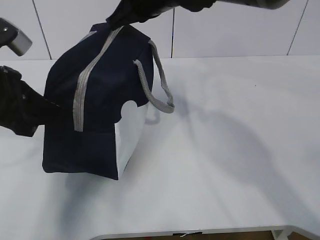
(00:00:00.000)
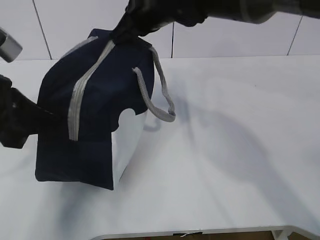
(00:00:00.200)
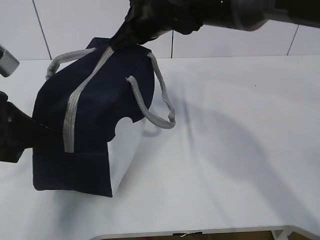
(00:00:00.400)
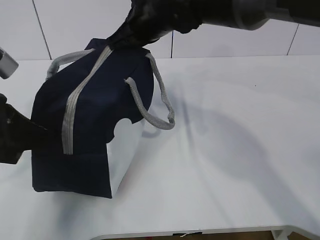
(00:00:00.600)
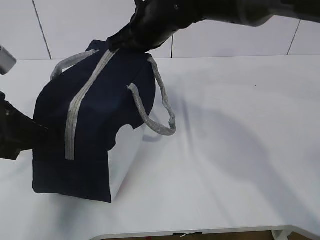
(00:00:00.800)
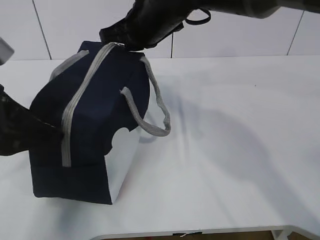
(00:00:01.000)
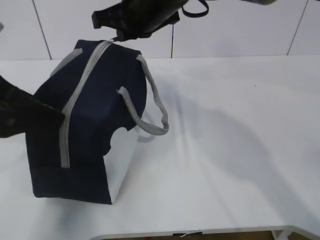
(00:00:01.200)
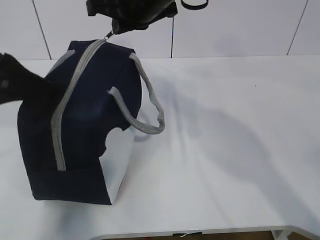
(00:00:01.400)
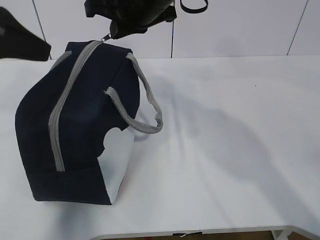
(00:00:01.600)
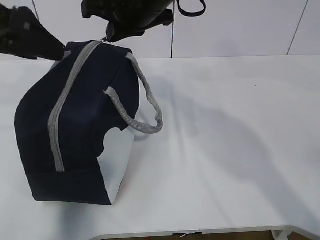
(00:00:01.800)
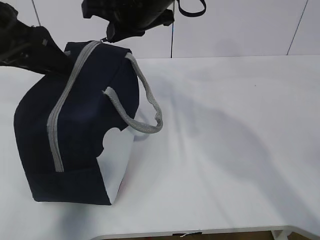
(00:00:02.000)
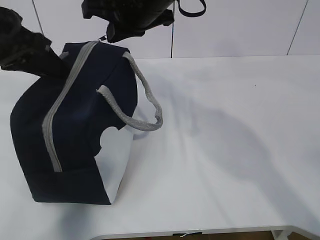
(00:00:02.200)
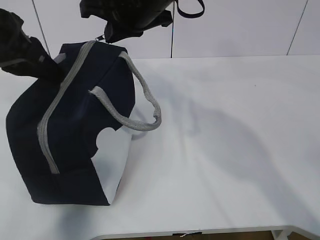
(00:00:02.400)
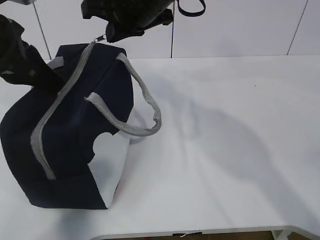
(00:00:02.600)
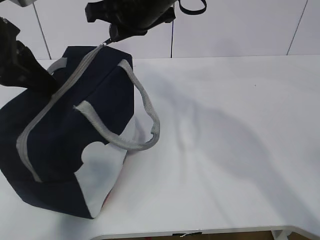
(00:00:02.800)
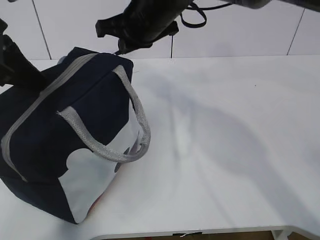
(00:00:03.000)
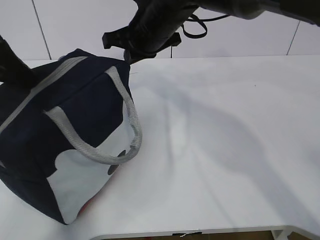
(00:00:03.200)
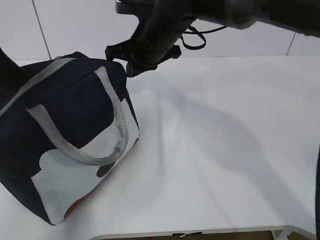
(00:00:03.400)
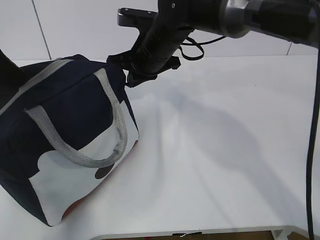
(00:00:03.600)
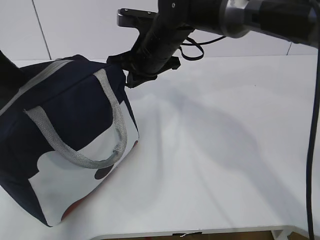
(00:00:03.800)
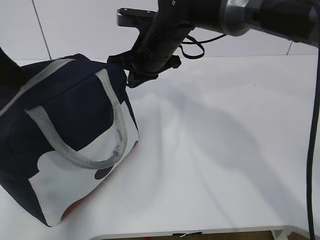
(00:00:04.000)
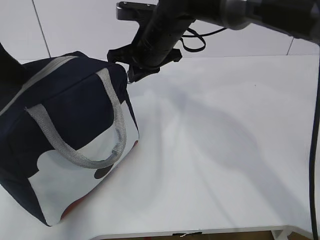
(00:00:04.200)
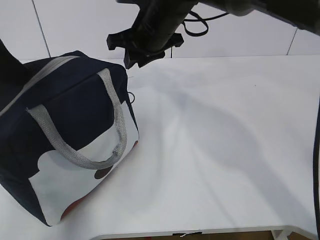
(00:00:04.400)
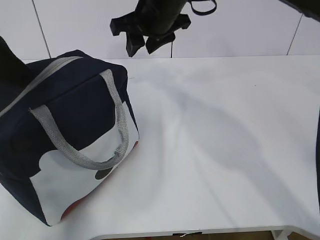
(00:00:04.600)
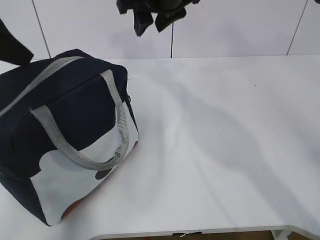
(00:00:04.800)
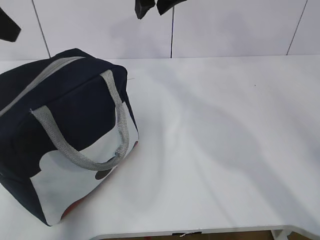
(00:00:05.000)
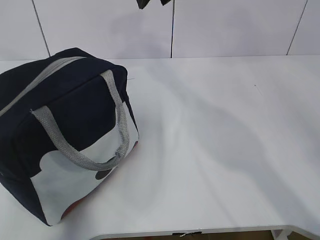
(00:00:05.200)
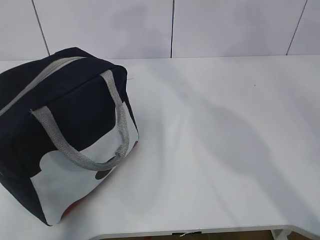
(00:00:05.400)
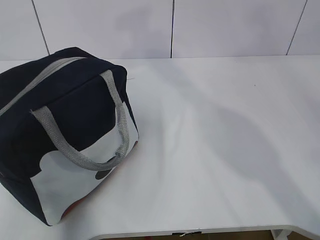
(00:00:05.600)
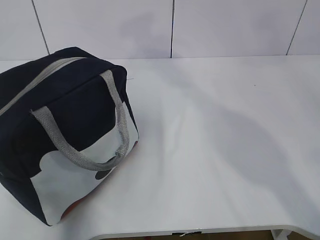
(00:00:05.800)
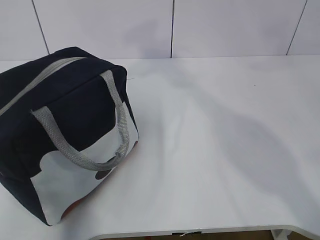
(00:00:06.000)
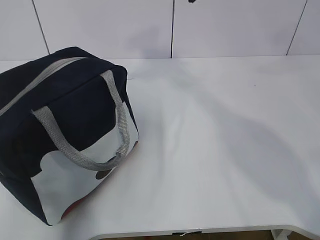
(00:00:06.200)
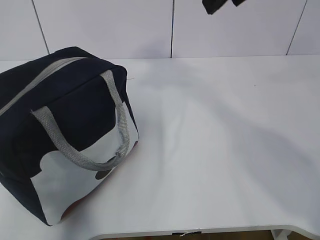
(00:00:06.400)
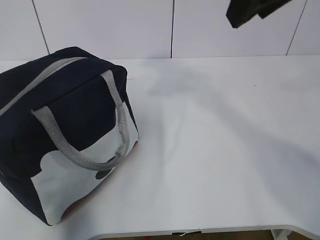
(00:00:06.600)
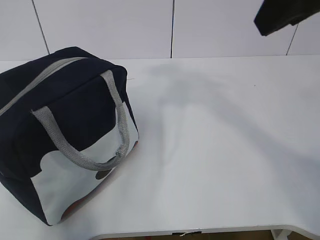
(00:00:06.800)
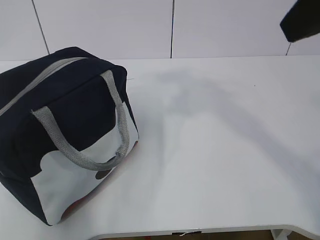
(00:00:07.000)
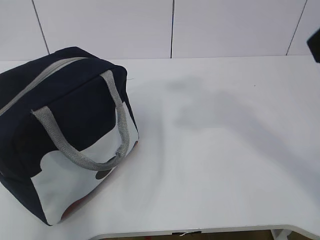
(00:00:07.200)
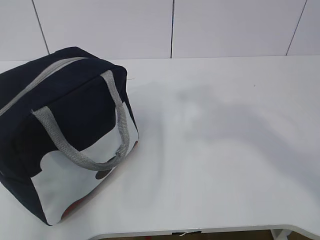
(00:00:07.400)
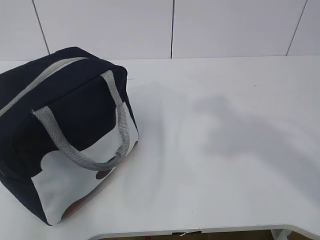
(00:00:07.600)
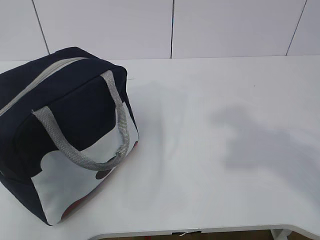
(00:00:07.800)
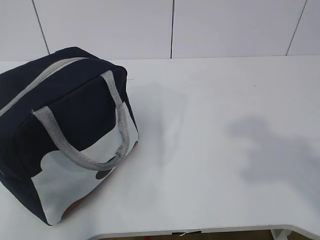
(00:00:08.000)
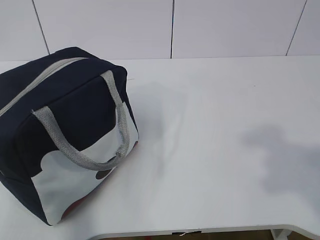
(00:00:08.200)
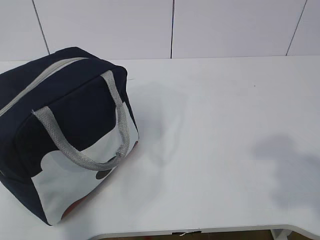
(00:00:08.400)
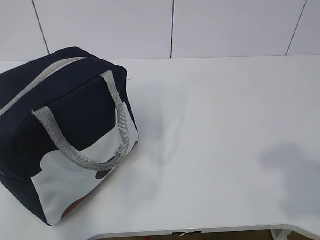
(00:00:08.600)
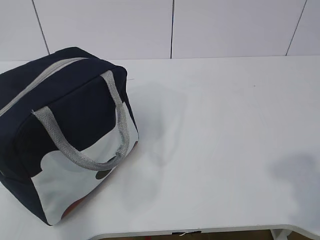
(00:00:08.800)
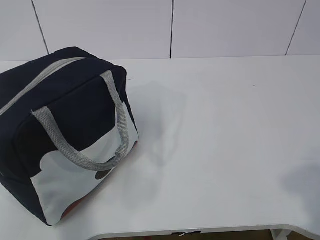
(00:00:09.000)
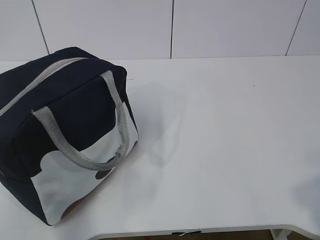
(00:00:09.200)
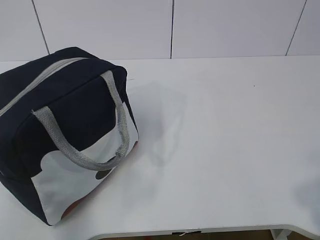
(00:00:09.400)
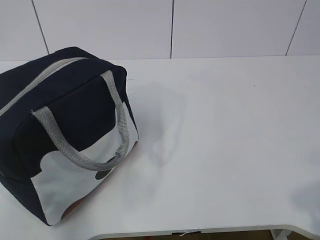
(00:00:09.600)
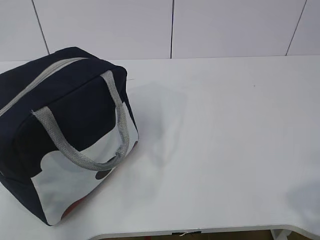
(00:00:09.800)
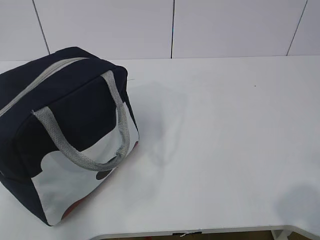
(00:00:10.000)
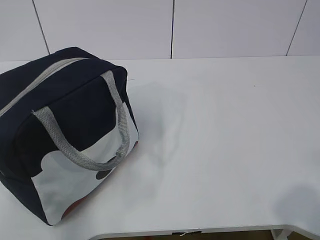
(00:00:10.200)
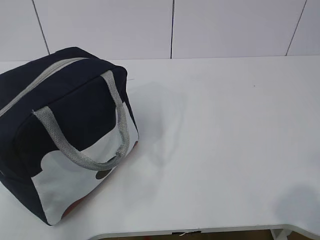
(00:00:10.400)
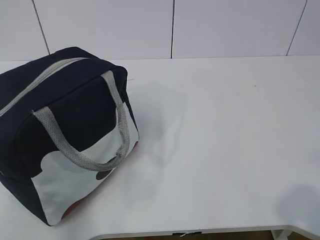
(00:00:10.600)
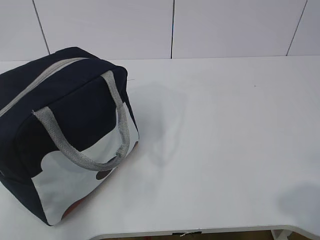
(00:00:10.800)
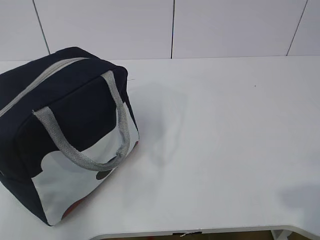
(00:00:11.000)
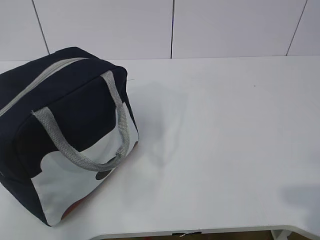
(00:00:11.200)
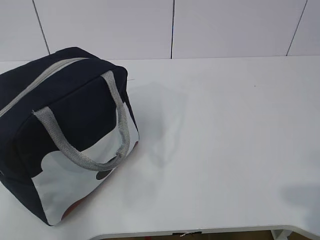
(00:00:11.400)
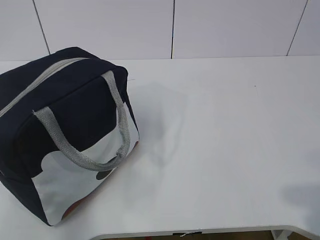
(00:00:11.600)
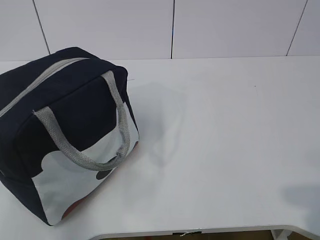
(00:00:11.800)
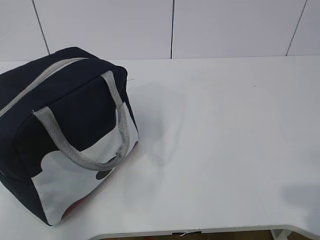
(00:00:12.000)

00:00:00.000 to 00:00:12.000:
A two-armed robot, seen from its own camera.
00:00:00.000 to 00:00:01.600: The left gripper shifts approximately 10 cm upward, and opens its fingers.
00:00:01.600 to 00:00:03.000: The left gripper closes.
00:00:03.000 to 00:00:04.400: The right gripper opens its fingers.
00:00:04.400 to 00:00:06.000: The left gripper moves upward, about 10 cm, and opens up. Meanwhile the right gripper goes roughly 20 cm upward, backward and to the right.
00:00:06.000 to 00:00:07.600: The left gripper shifts about 20 cm backward. The right gripper is displaced backward and to the right by approximately 25 cm.
00:00:07.600 to 00:00:09.000: The left gripper moves downward, approximately 15 cm; the right gripper travels backward, downward and to the right by roughly 15 cm.
00:00:09.000 to 00:00:10.400: The right gripper travels downward by some 5 cm.

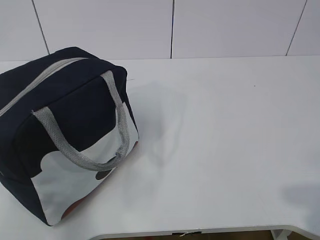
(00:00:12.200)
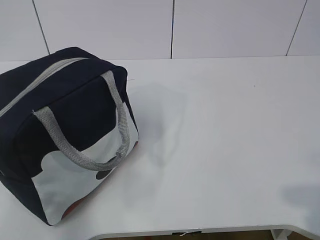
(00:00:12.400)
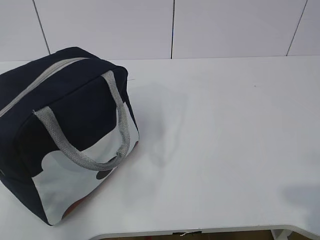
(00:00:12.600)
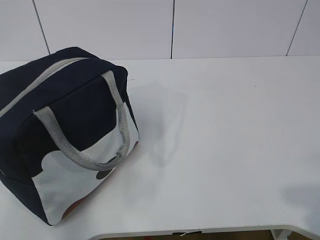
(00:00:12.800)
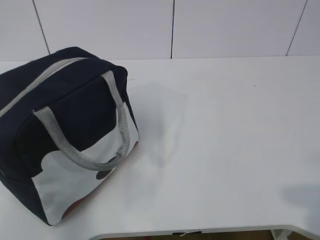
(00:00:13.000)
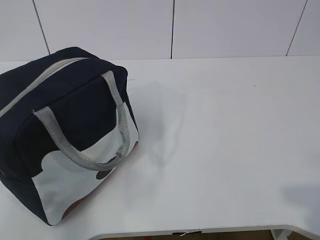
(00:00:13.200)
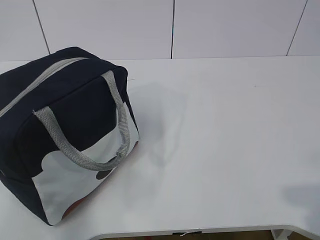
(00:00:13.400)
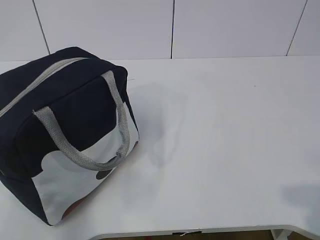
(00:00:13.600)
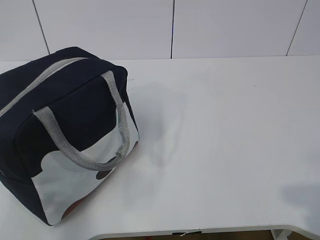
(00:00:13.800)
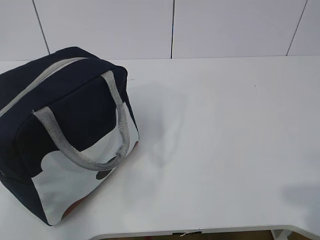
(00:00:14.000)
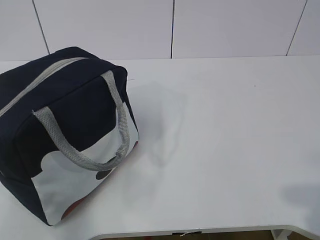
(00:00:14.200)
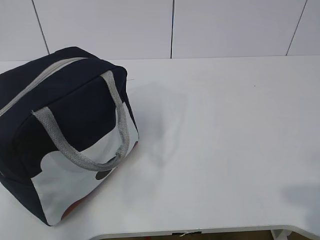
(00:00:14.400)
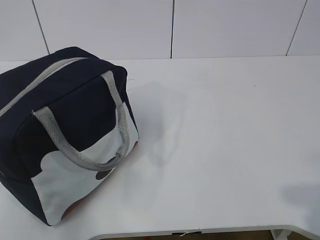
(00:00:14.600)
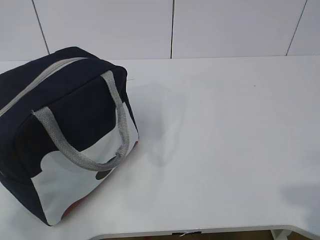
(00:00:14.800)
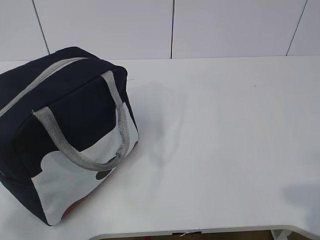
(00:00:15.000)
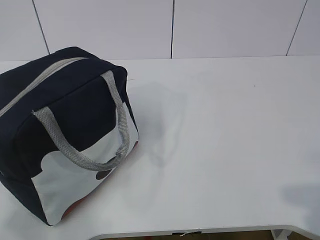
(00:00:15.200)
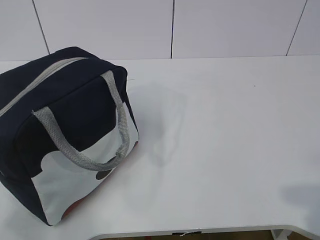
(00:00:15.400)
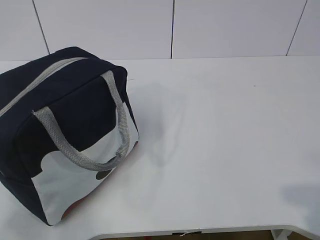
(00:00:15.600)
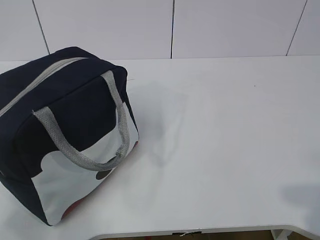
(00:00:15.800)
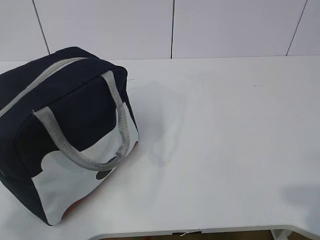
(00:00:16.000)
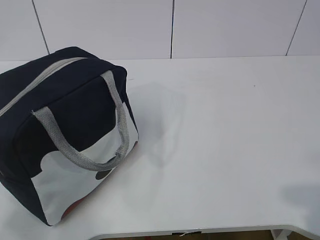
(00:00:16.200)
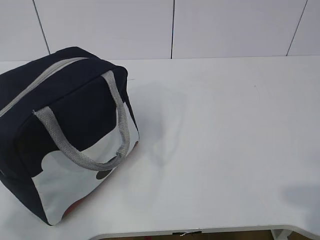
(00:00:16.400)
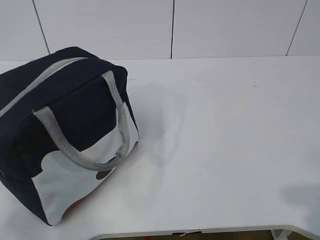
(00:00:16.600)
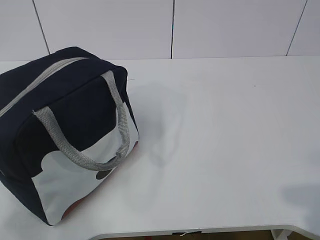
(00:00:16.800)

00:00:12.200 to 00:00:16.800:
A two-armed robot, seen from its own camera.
00:00:12.200 to 00:00:13.800: The two grippers keep their place.
00:00:15.200 to 00:00:16.800: The two grippers keep their place.
